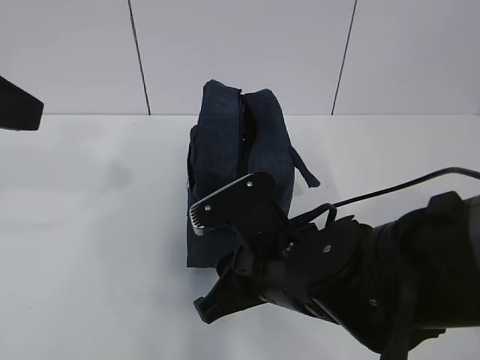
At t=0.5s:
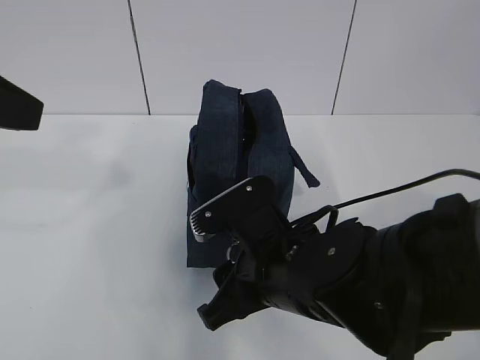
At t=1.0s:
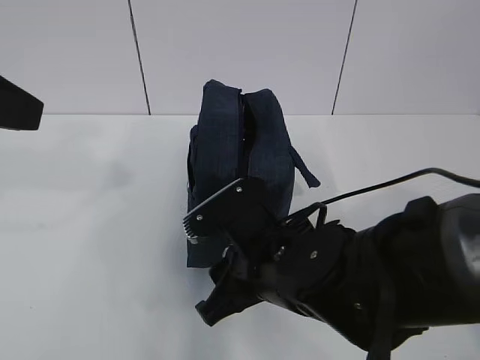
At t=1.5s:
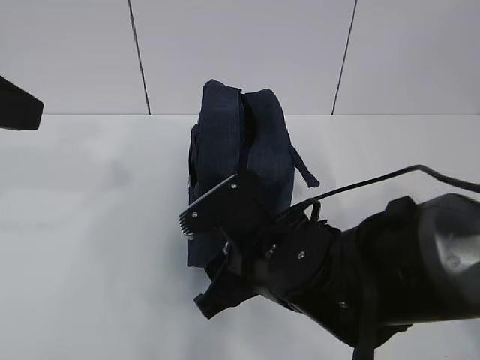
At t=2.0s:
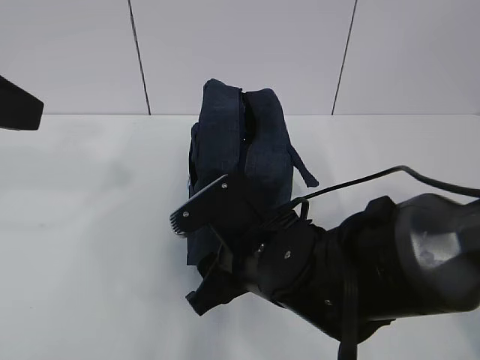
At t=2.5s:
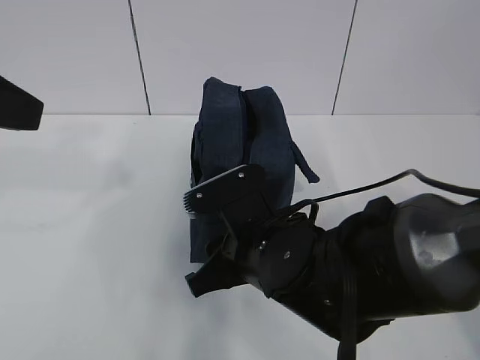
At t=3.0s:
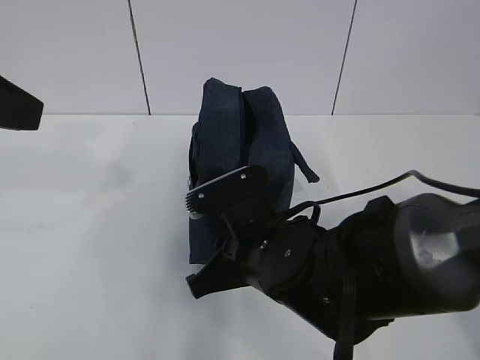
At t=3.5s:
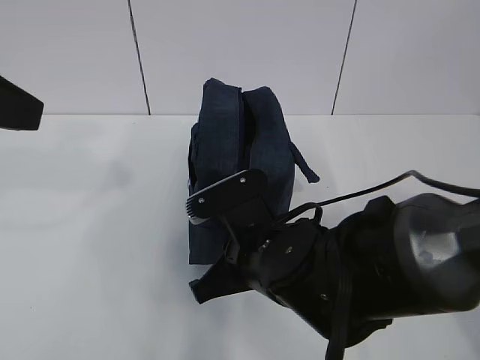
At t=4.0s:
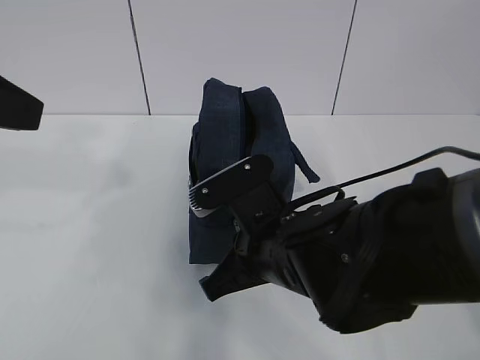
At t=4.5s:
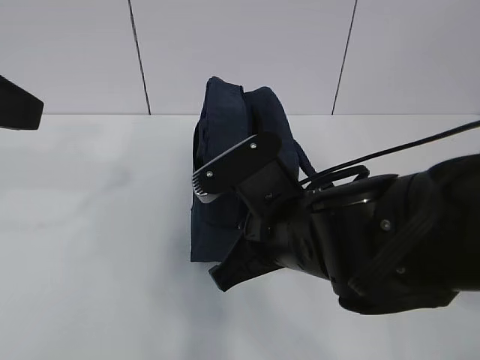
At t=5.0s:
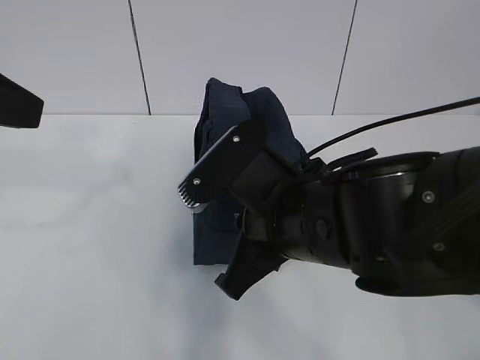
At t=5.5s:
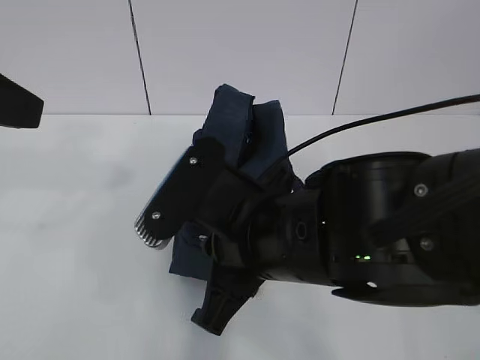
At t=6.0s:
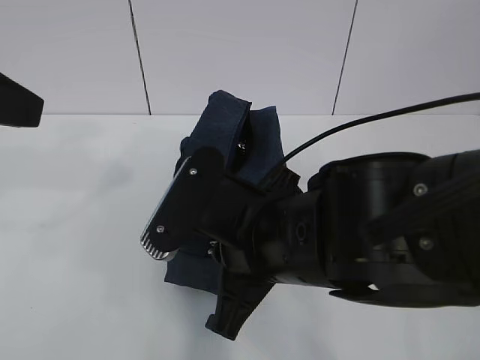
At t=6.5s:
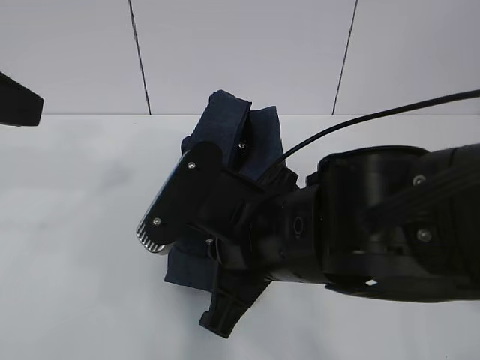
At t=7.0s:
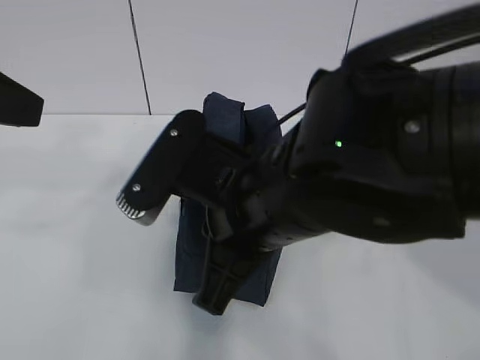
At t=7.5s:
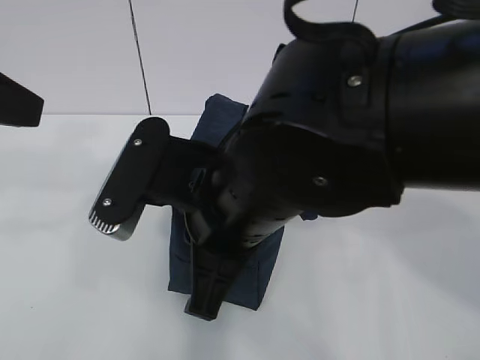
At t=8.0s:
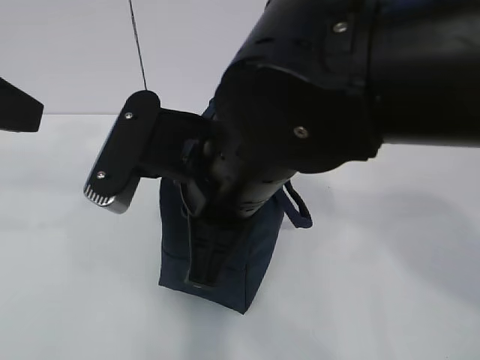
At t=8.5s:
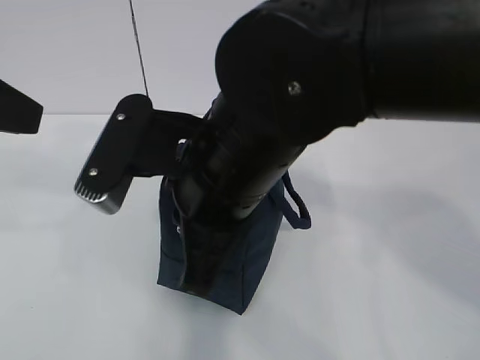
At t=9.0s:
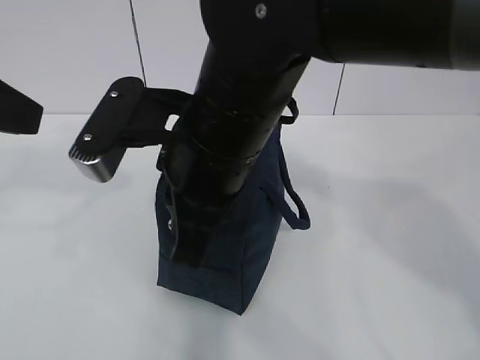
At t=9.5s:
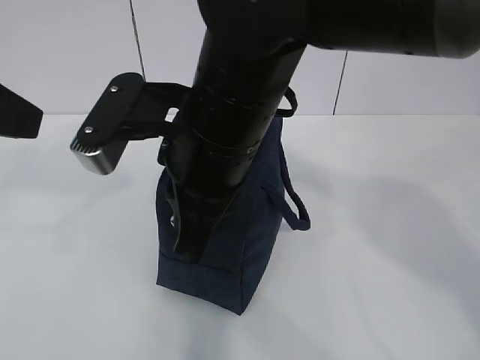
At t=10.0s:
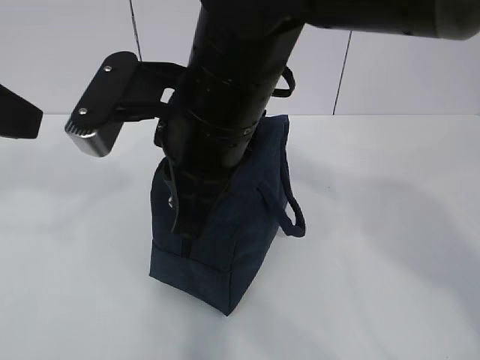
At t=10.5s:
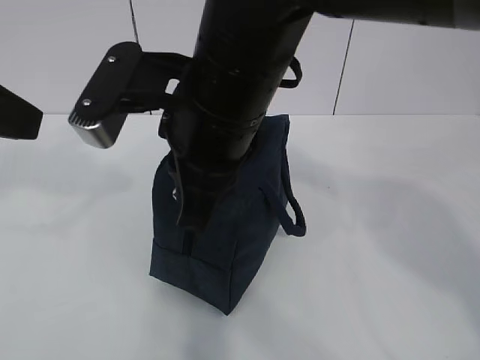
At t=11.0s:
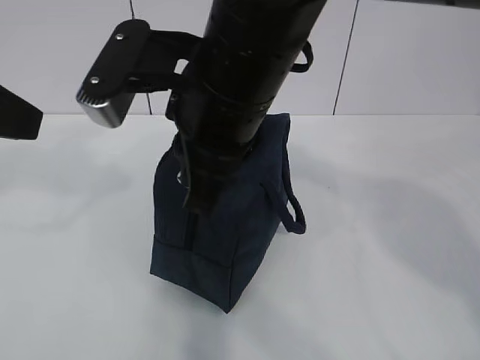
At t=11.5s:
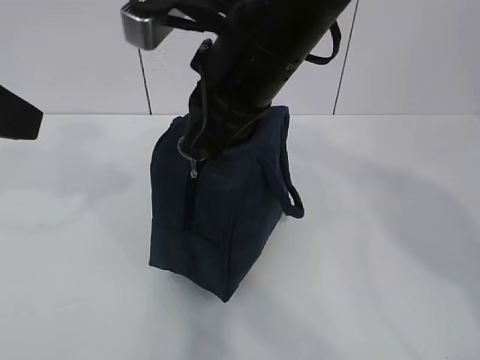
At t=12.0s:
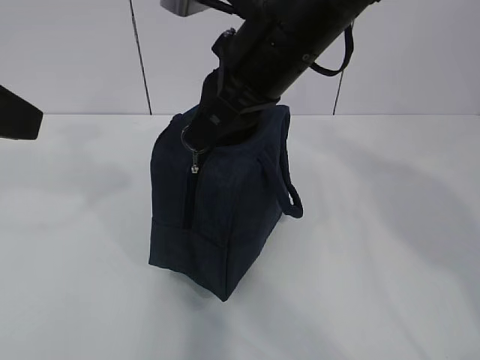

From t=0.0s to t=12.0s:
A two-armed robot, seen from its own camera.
From t=0.0s to t=2.0s: The grippers make only small movements.
From t=2.0s to t=4.0s: The right gripper closes its fingers.
From t=4.0s to t=6.0s: The right gripper shifts roughly 5 cm upward.
From t=6.0s to t=8.0s: The right gripper goes roughly 5 cm upward.
From t=10.0s to t=12.0s: The right gripper goes approximately 10 cm to the right and forward.

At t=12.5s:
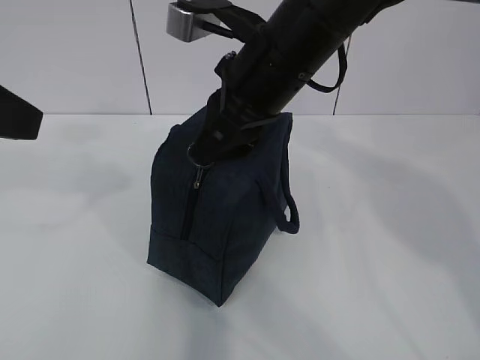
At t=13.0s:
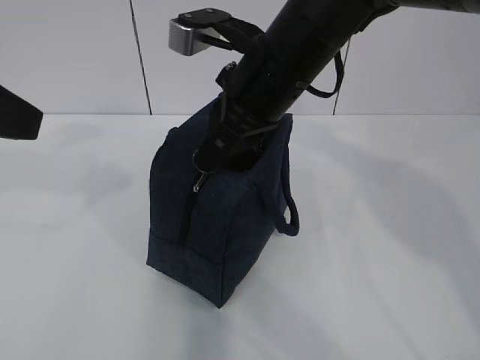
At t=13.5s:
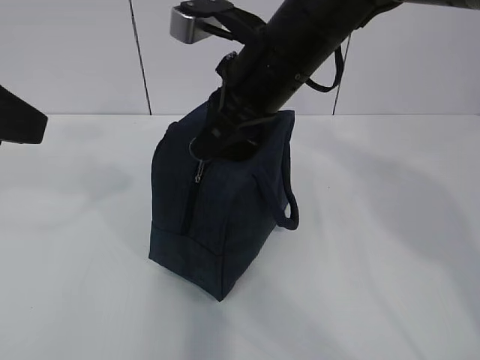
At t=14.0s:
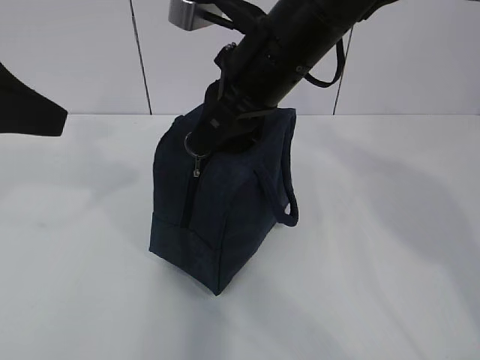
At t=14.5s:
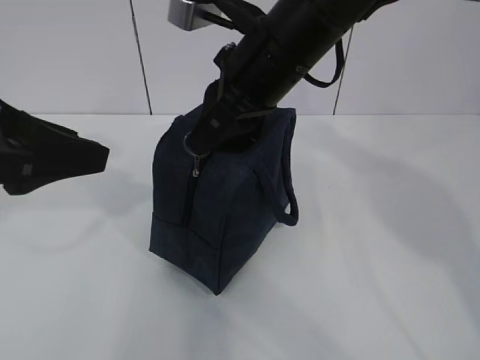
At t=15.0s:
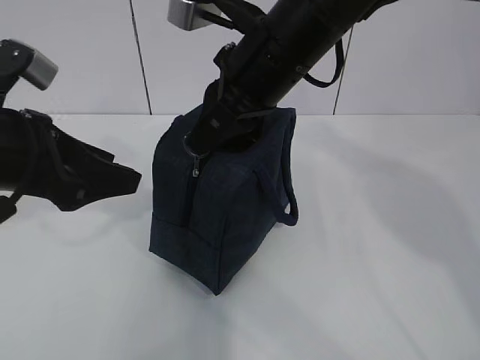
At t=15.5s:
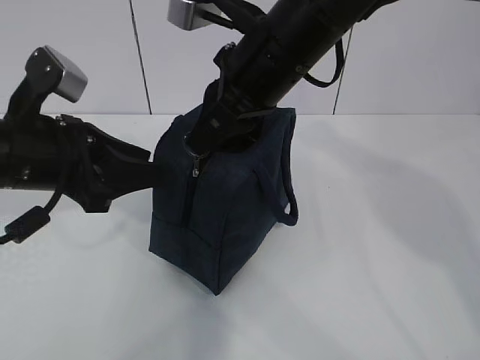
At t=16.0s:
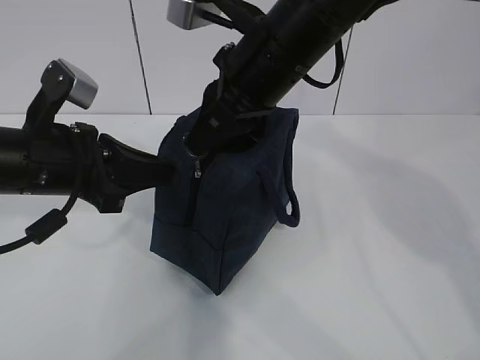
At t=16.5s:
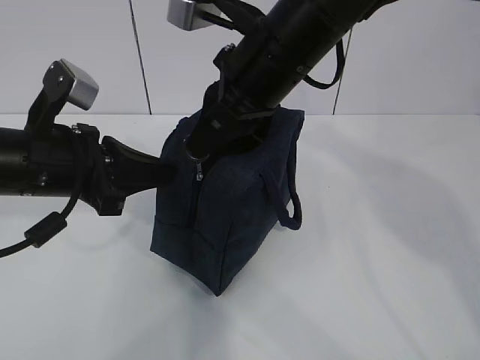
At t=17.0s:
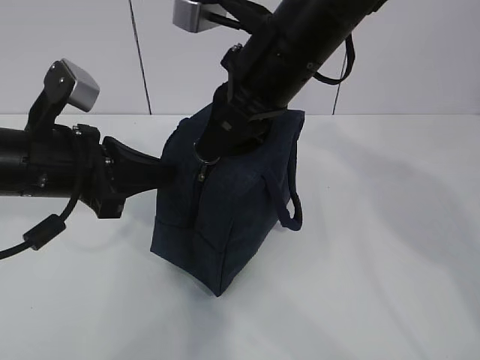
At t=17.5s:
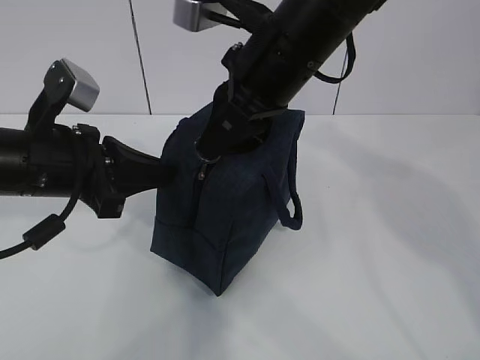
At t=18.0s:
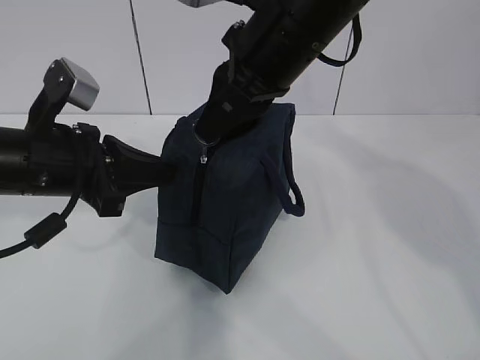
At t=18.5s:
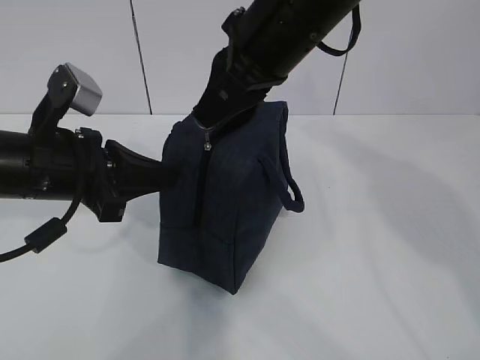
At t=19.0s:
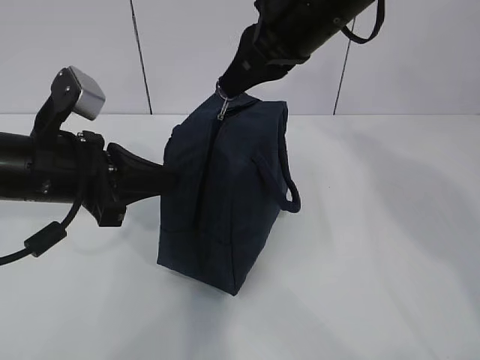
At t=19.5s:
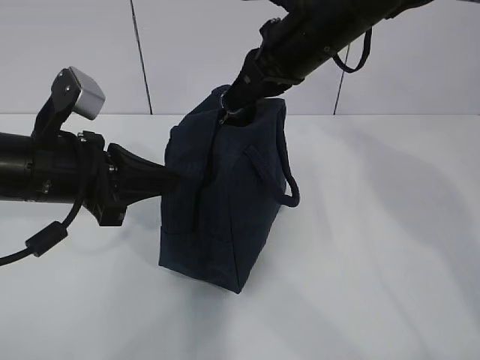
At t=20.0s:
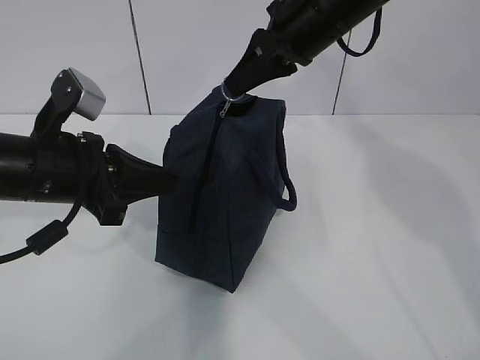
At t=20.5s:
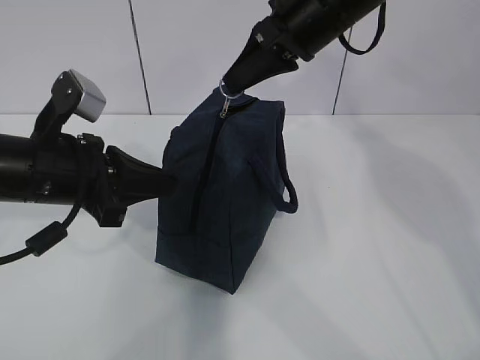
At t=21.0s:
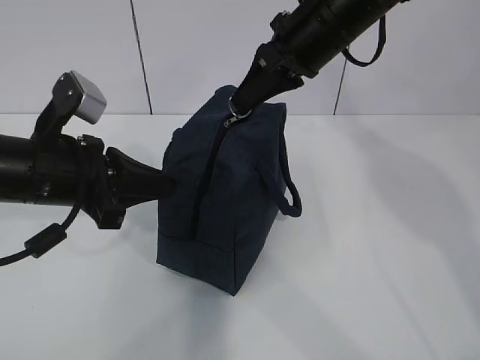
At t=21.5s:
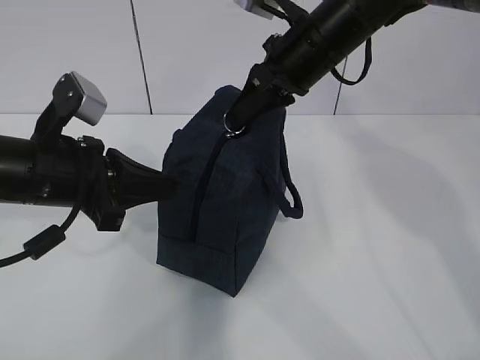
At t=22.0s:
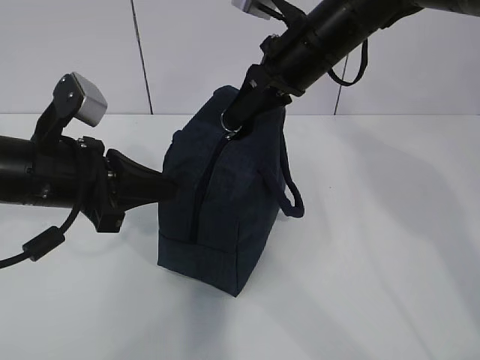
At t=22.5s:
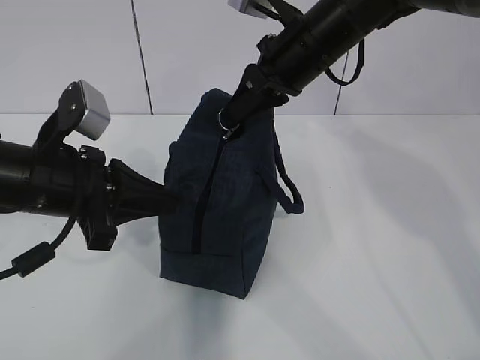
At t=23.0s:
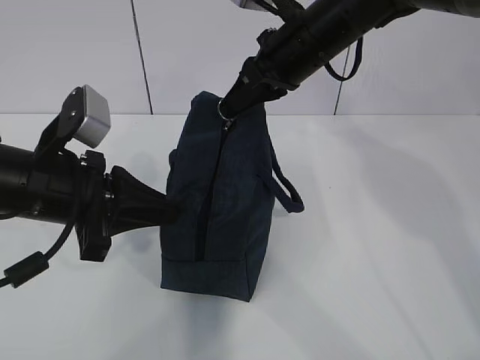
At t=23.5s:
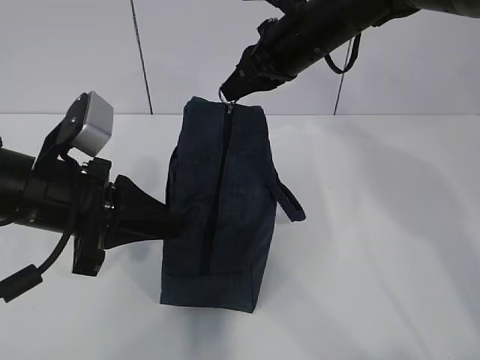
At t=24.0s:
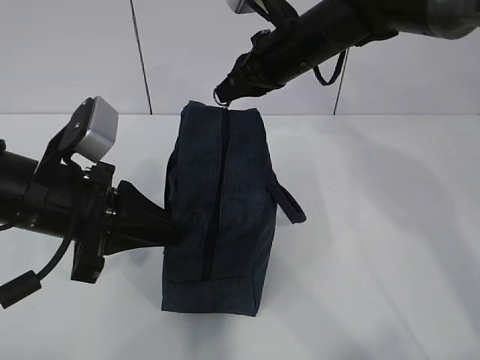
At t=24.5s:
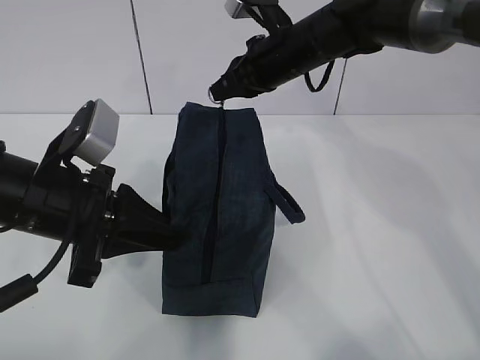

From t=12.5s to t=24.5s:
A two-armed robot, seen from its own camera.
Step, from t=12.5s to t=18.5s: Pull the zipper with your right hand.
From t=12.5s to t=14.5s: The left gripper travels downward by about 5 cm.
From t=14.5s to t=16.5s: The left gripper moves downward and forward, approximately 10 cm, and closes up.
From t=16.5s to t=18.5s: The grippers move only a little.
From t=18.5s to t=20.5s: The right gripper moves forward and to the right, roughly 10 cm.
From t=20.5s to t=22.5s: The grippers stay close to where they were, moving slightly.
From t=22.5s to t=24.5s: The right gripper shifts some 5 cm forward.

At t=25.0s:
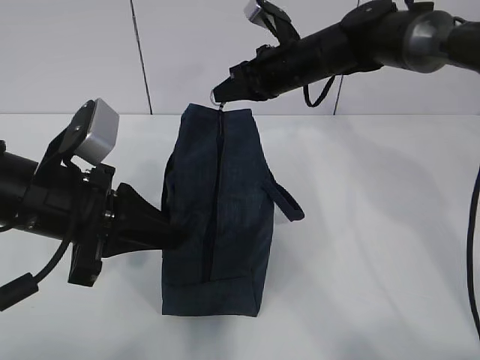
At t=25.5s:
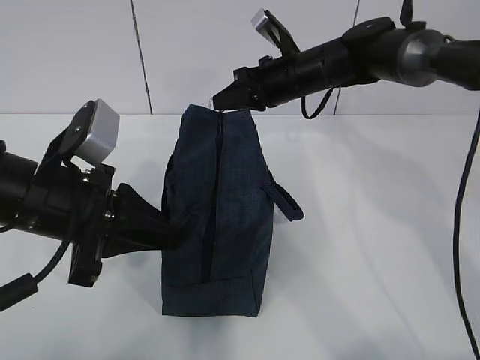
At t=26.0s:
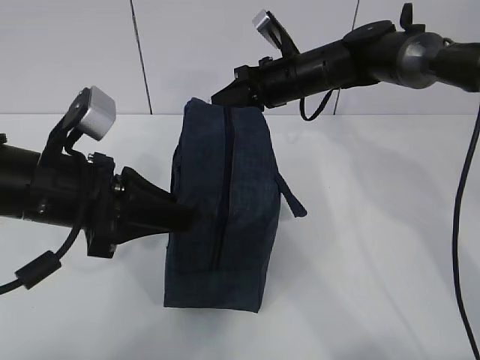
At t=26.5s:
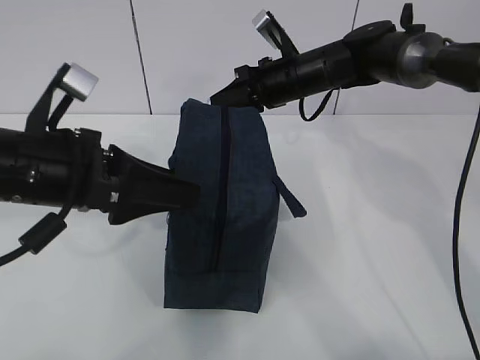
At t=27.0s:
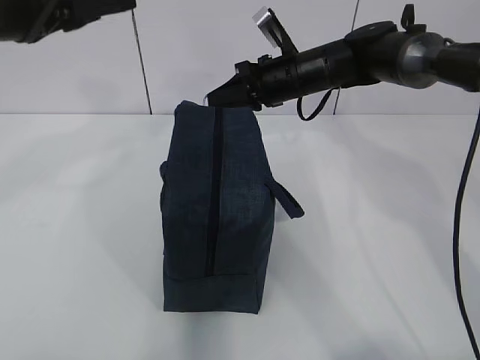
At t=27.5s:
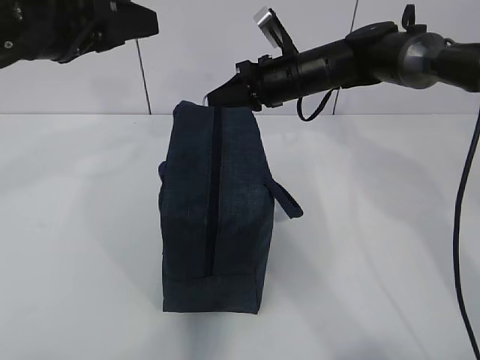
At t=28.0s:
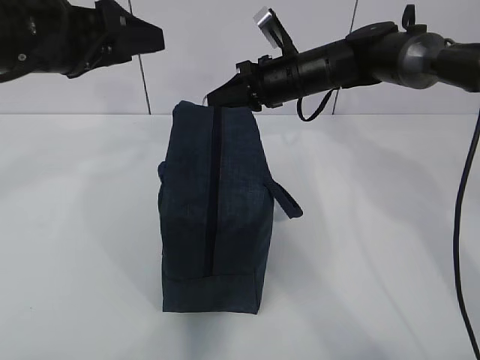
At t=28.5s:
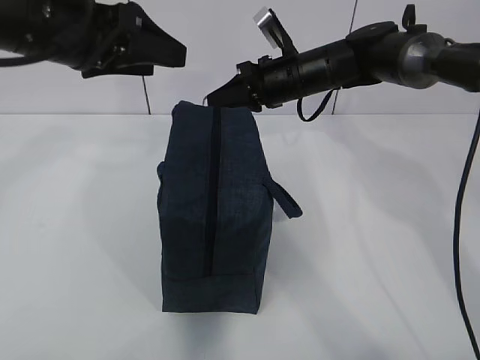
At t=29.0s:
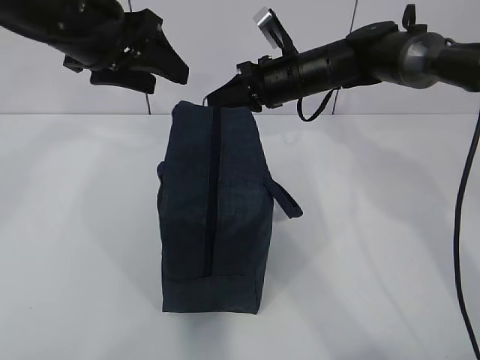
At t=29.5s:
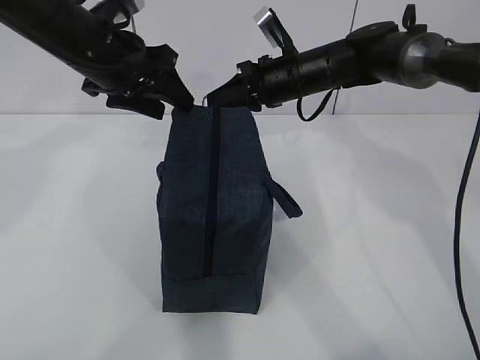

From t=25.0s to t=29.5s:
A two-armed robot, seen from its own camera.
From t=25.0s to t=27.0s: The left gripper travels upward by some 15 cm, and opens its fingers.
From t=27.0s to t=29.5s: The left gripper heads forward and downward, covering about 15 cm.
